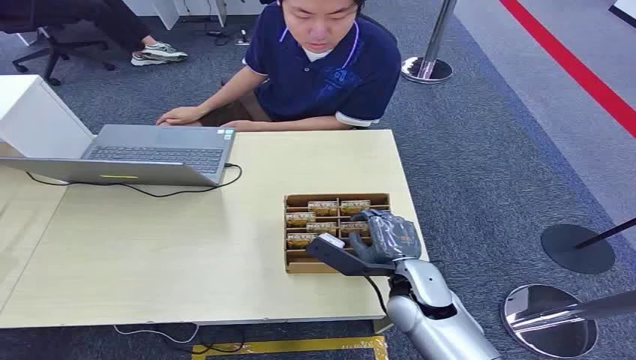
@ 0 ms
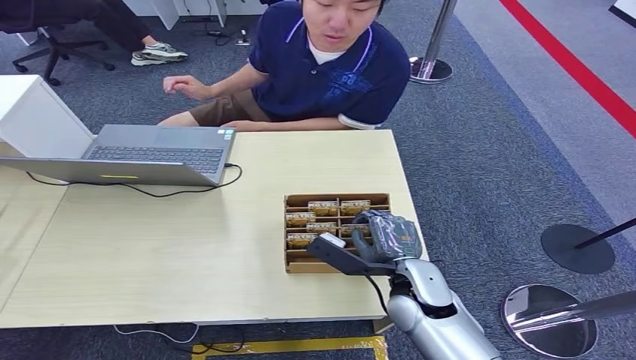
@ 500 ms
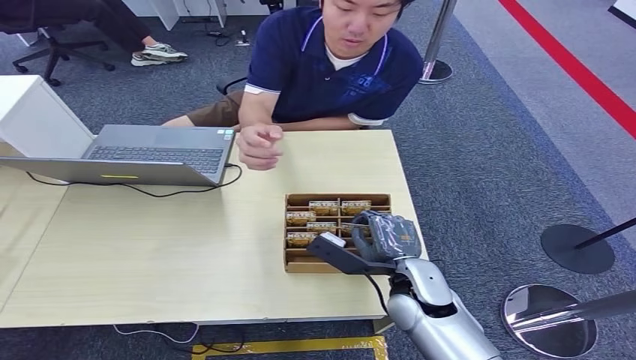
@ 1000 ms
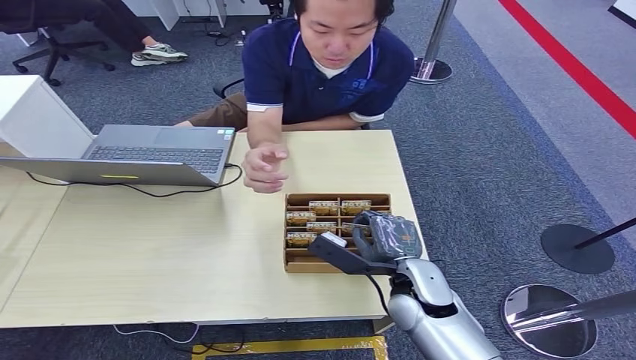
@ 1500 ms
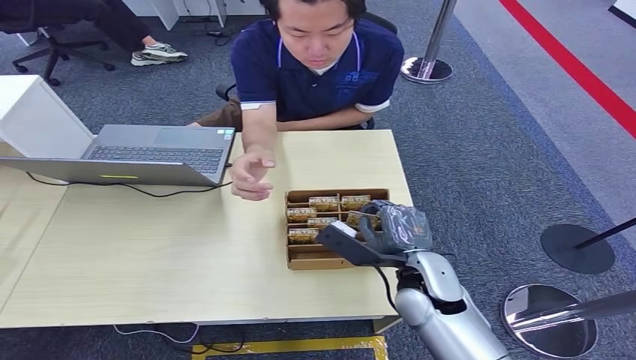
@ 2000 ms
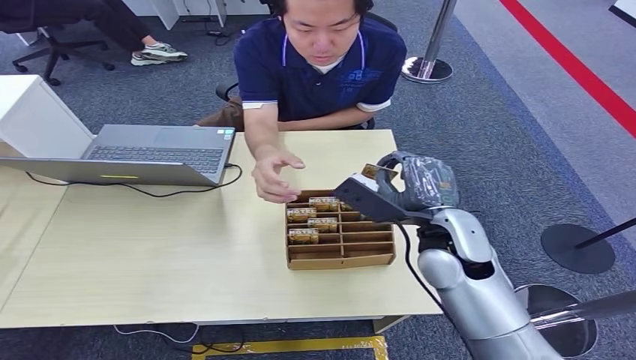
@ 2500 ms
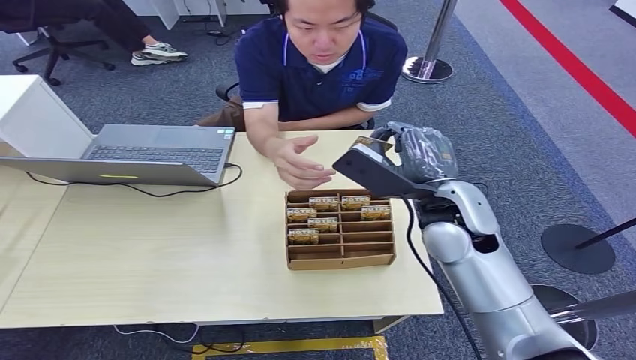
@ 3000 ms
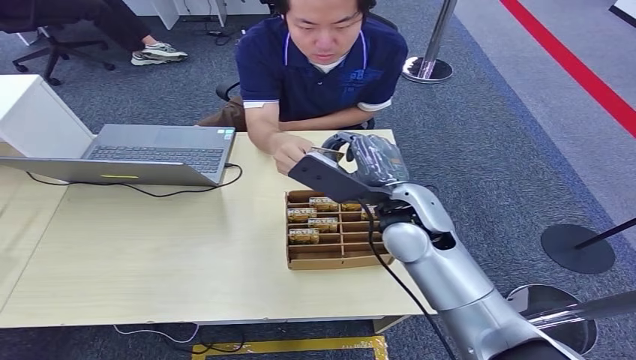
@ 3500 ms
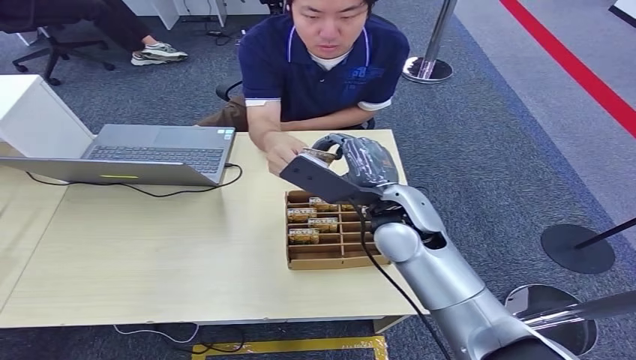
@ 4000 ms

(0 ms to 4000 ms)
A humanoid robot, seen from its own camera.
Step, 0 ms - 2000 ms: Pick up the key card from the card box.
Step, 2500 ms - 4000 ms: Hand the key card to the target.
2000 ms - 4000 ms: The right hand is displaced upward and forward by about 15 cm.

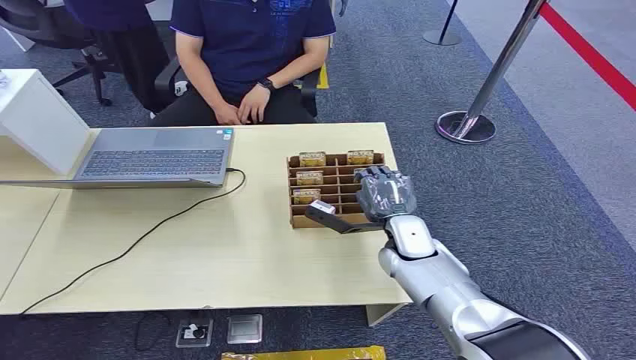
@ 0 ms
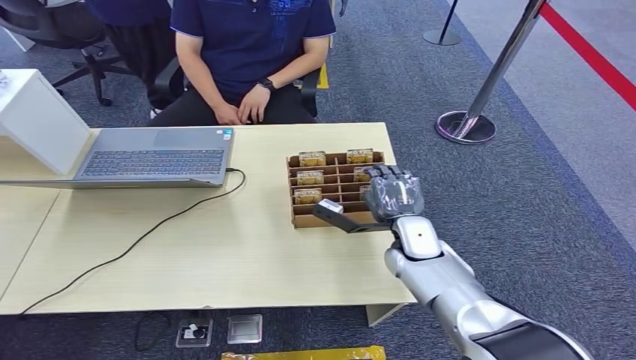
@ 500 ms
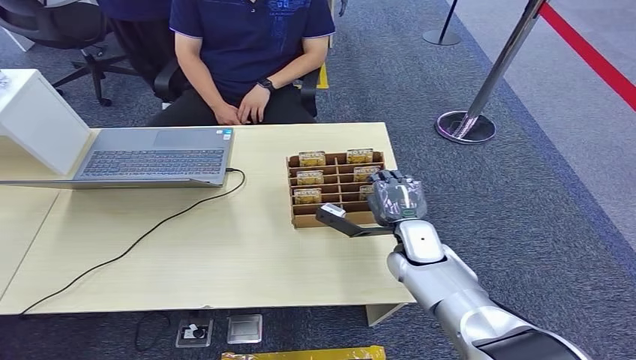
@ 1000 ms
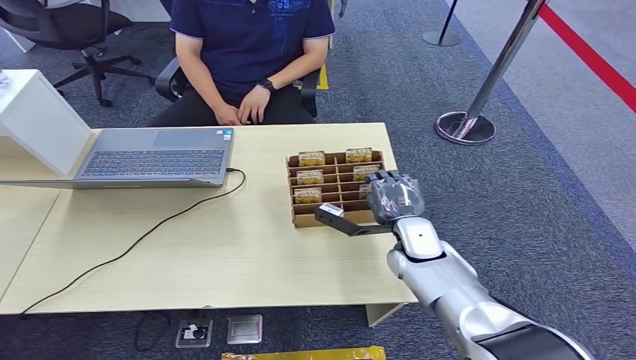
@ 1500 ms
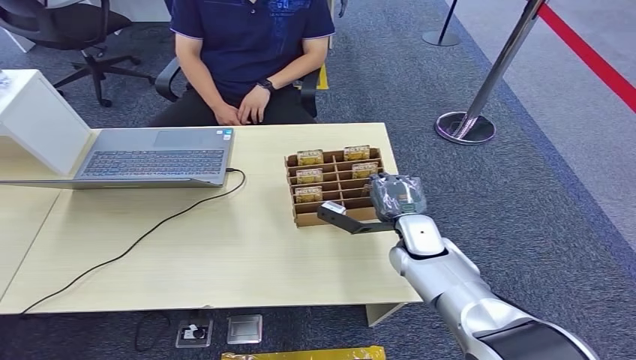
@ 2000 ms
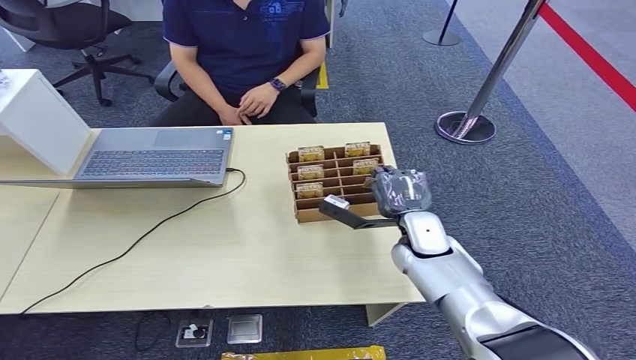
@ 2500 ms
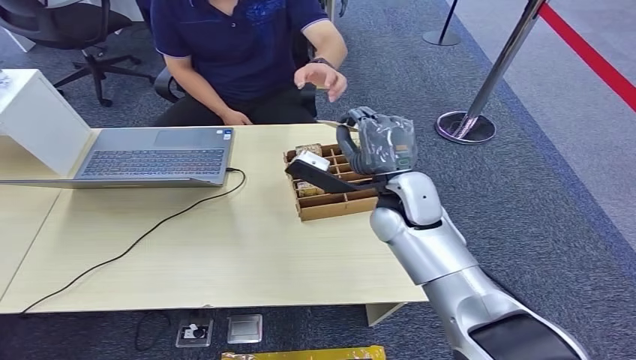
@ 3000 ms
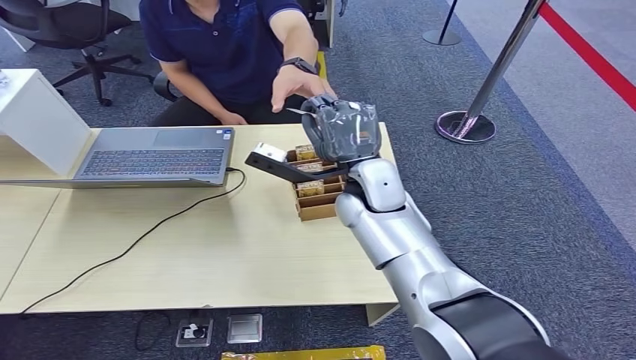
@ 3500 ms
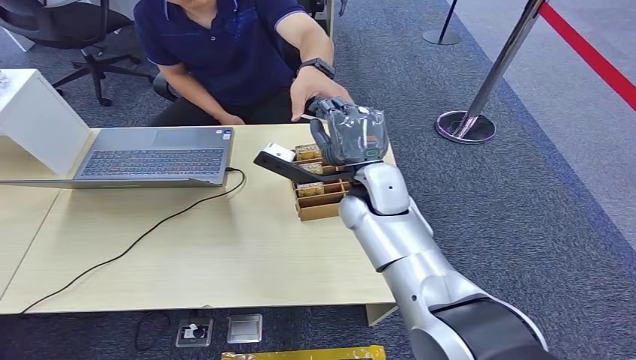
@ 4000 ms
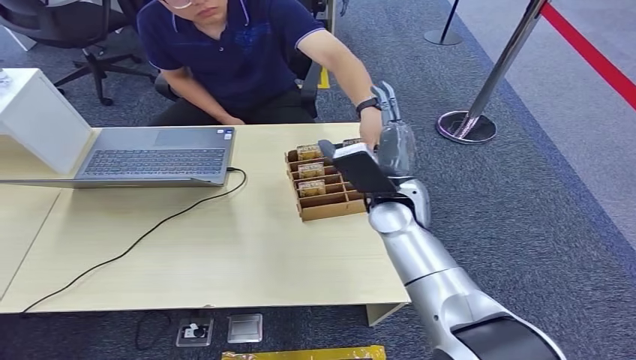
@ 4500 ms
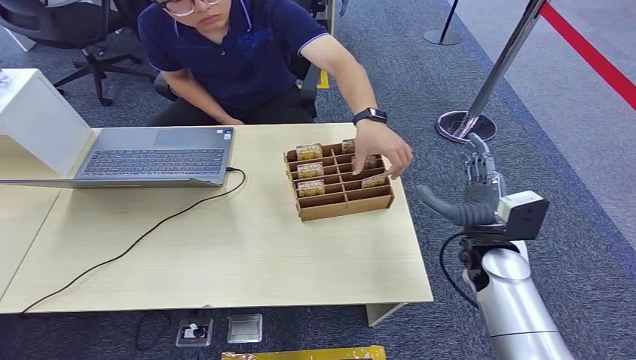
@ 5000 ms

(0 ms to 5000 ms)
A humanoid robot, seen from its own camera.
Step, 0 ms - 2500 ms: Pick up the key card from the card box.
Step, 3000 ms - 5000 ms: Hand the key card to the target.
2500 ms - 5000 ms: The right hand heads to the right and backward, covering roughly 10 cm.
